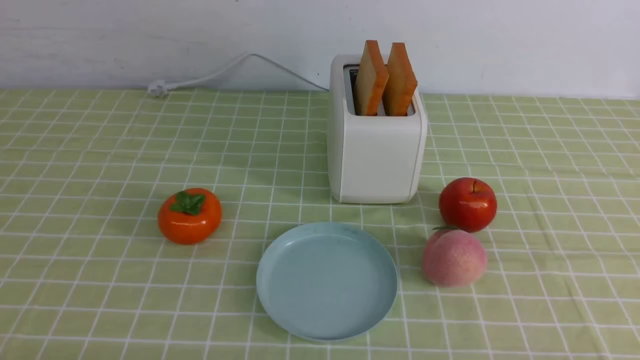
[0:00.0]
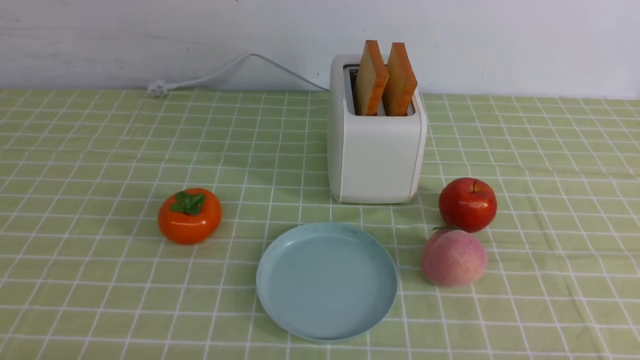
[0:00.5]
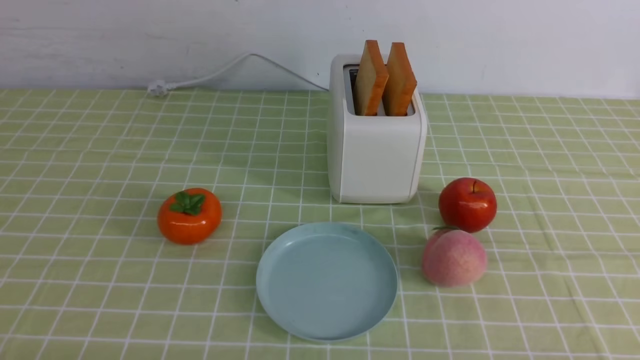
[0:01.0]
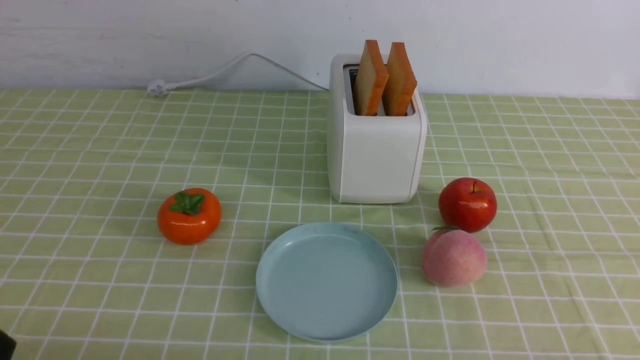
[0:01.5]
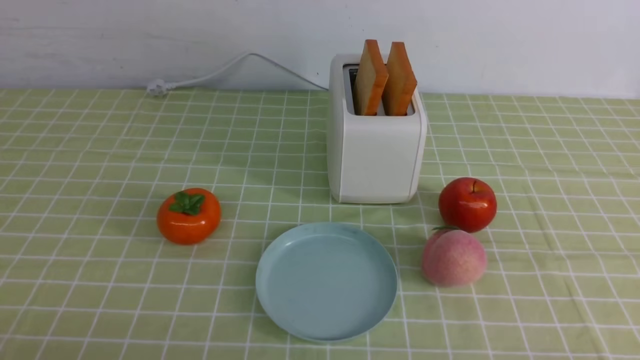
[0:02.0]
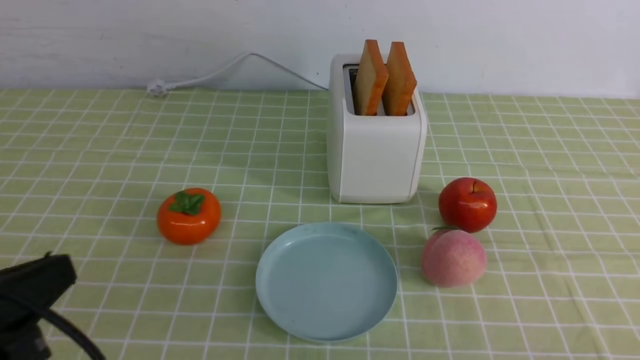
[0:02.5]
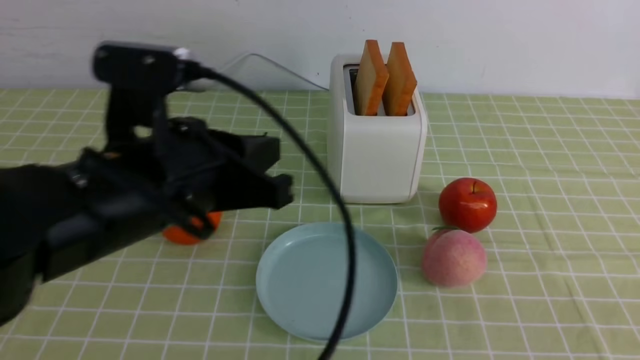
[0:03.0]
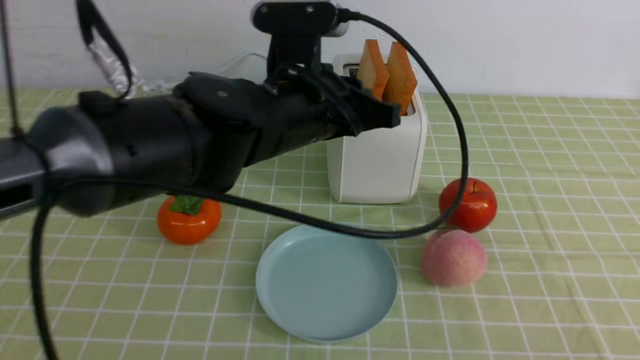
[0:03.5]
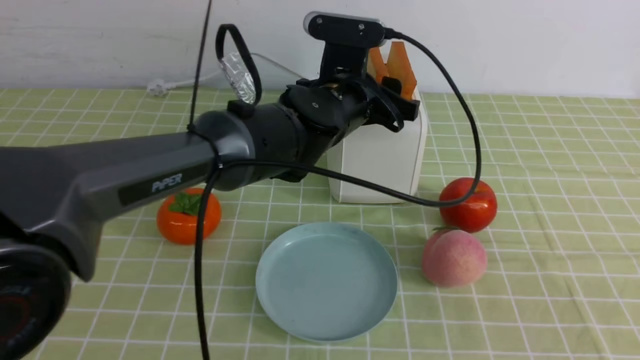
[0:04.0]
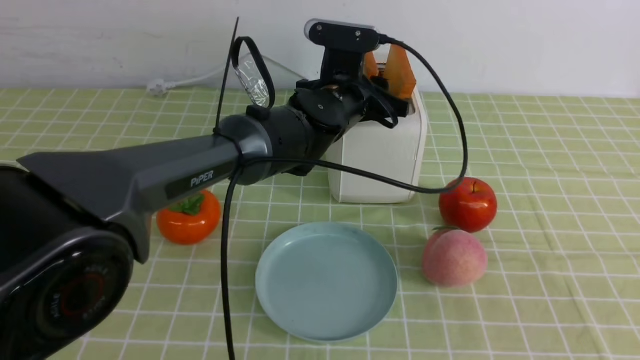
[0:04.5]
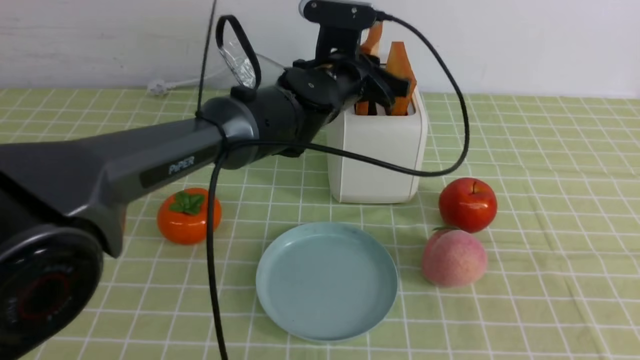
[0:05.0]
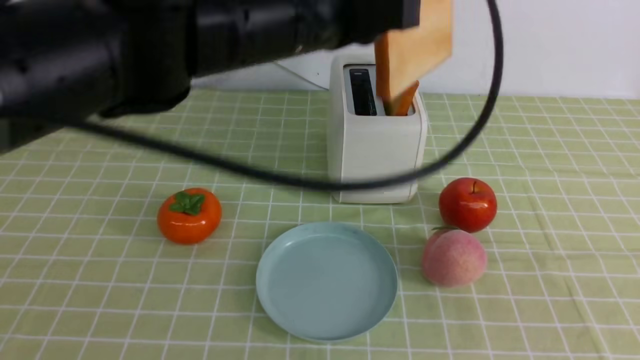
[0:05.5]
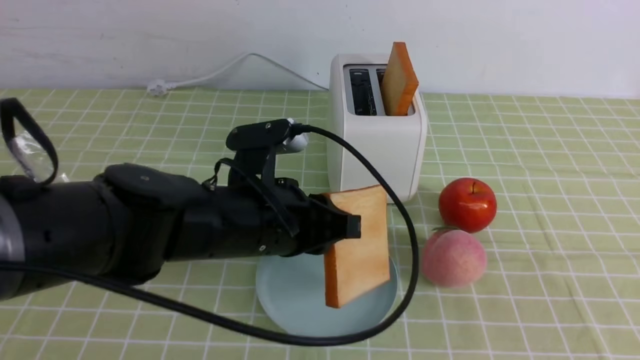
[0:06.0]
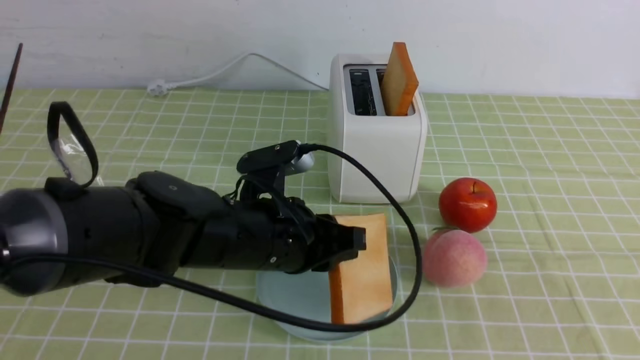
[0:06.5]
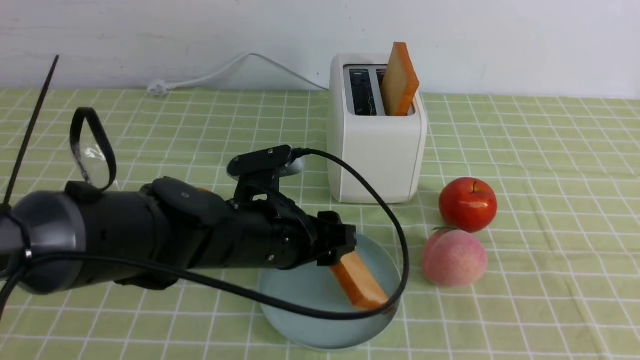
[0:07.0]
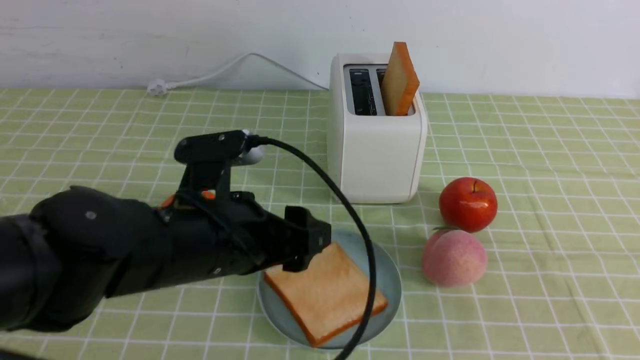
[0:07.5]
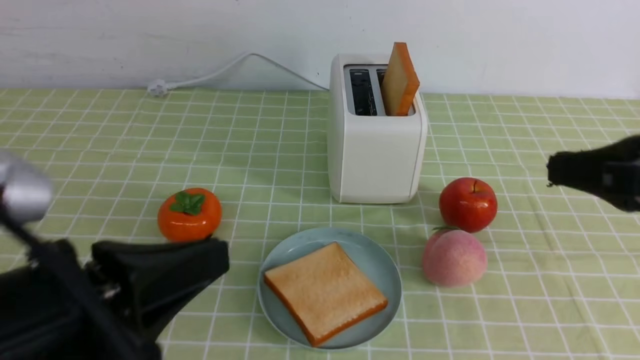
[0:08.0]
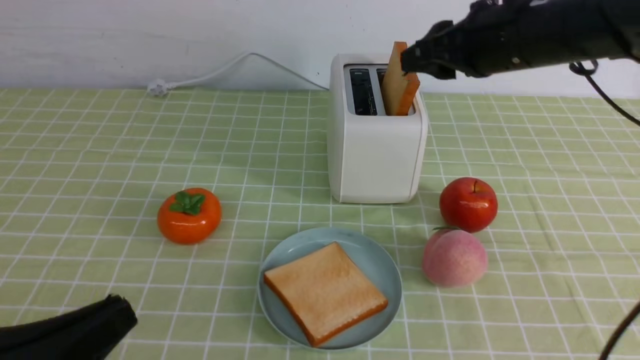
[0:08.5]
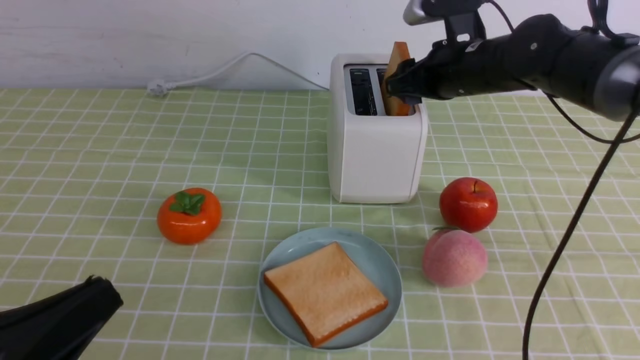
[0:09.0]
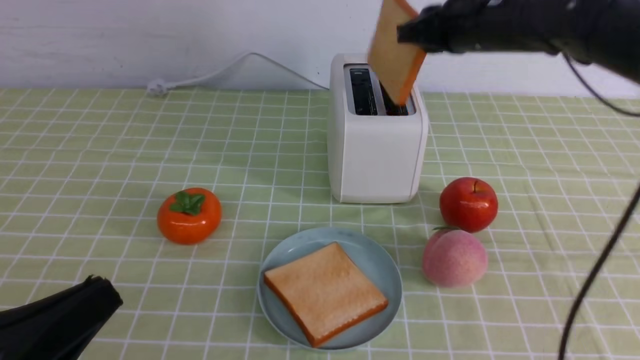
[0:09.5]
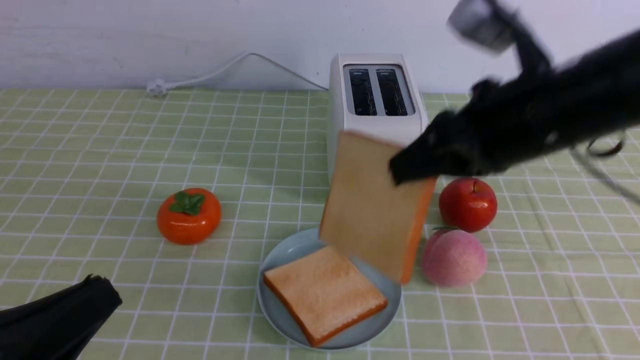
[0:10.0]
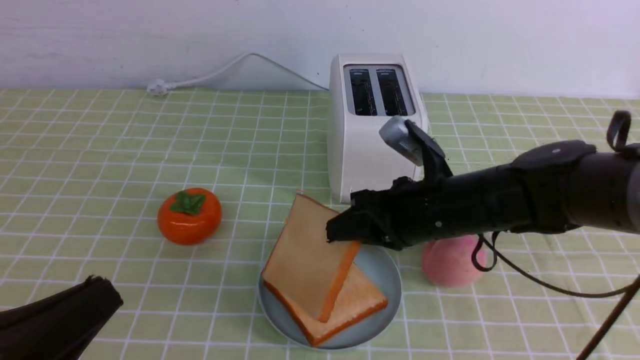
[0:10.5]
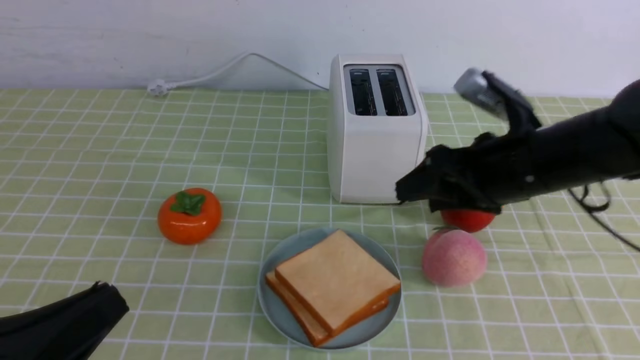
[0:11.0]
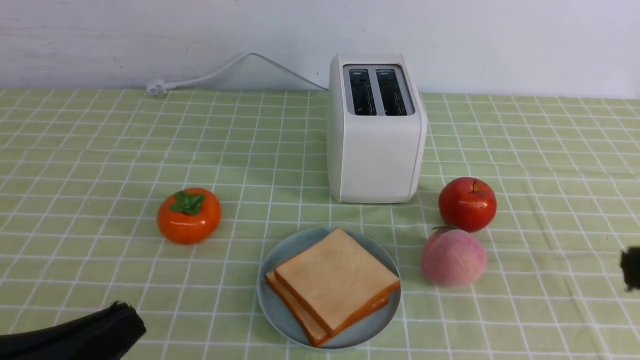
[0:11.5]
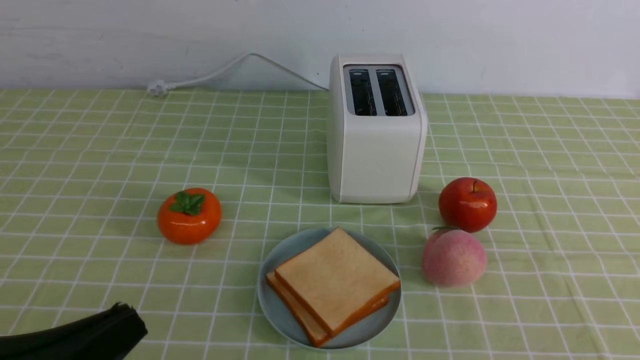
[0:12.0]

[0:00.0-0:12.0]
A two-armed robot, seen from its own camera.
Task of the whole recording: take toasted bread from bread machine on green coffee tablecloth place on plate.
Step, 0:00.0 to 0:05.0: use the left arm to take out a slice of bread.
Step, 0:05.5 to 0:07.0: use the left arm to put a slice of bread into the empty plate.
Step, 0:07.5 to 0:09.5: use the right arm to take out a slice of bread.
Step, 0:10.0 to 0:11.0: use the right arm to put a slice of bread into the plate.
0:02.0 to 0:04.0: The left gripper travels forward and to the right by roughly 40 cm, and opens, while the right gripper heads upward, covering some 15 cm, and closes its fingers.
0:04.0 to 0:06.0: The left gripper moves backward and to the left, some 15 cm, and closes up.
0:06.0 to 0:08.0: The left gripper travels backward and to the left by approximately 20 cm, and opens, then closes again, while the right gripper moves forward, about 15 cm.
0:08.0 to 0:10.0: The right gripper shifts about 15 cm to the left and forward, and opens and closes again. Meanwhile the left gripper shifts by roughly 5 cm.
0:10.0 to 0:12.0: The right gripper is displaced backward and to the right by roughly 30 cm, and opens, then closes once more.

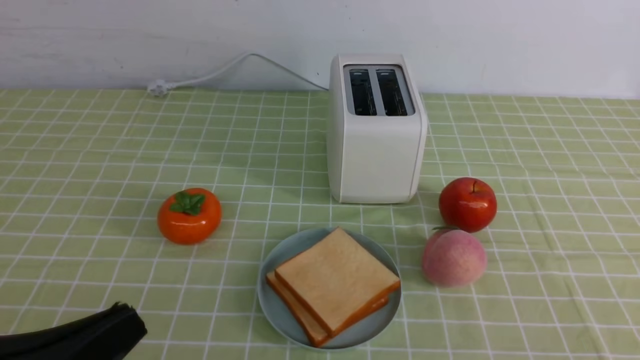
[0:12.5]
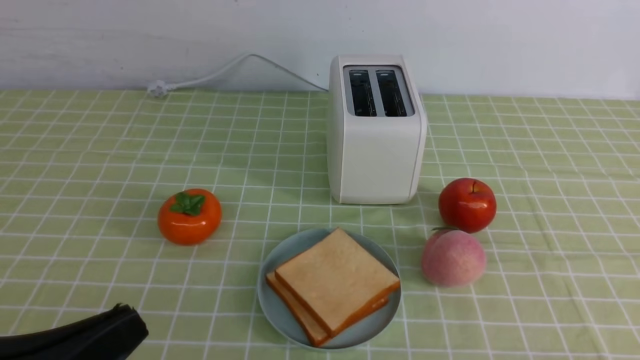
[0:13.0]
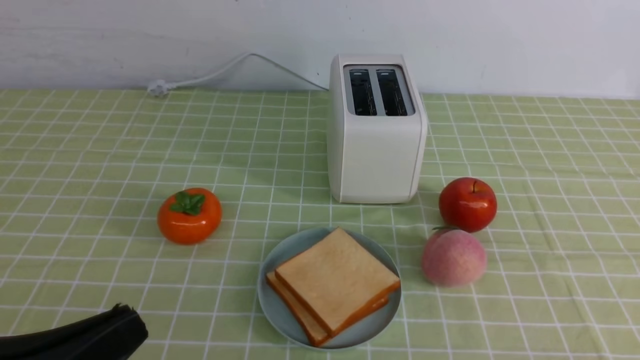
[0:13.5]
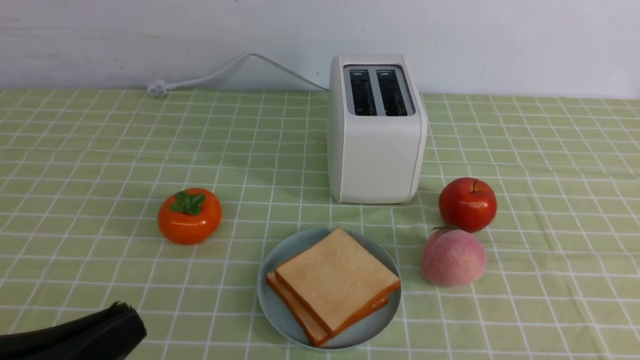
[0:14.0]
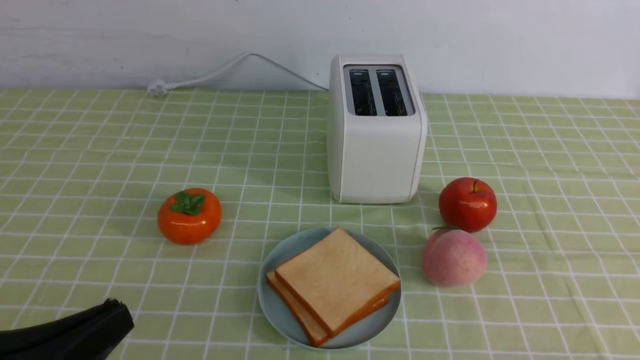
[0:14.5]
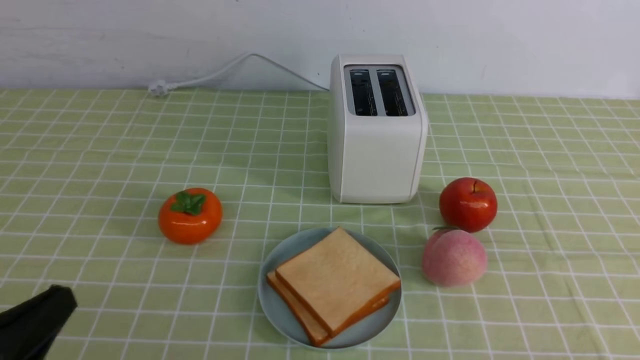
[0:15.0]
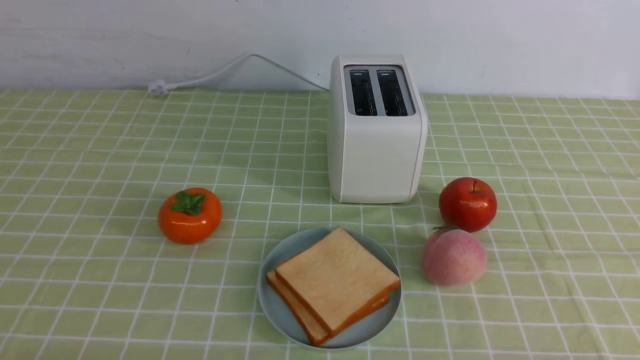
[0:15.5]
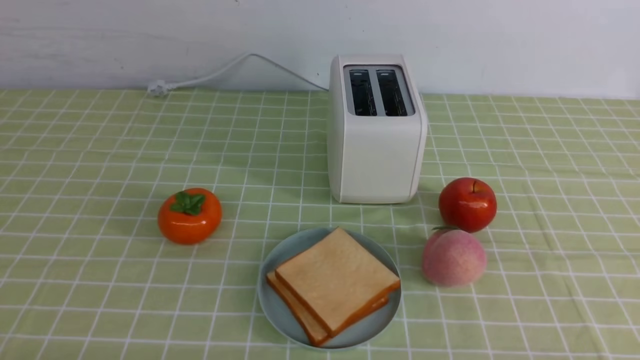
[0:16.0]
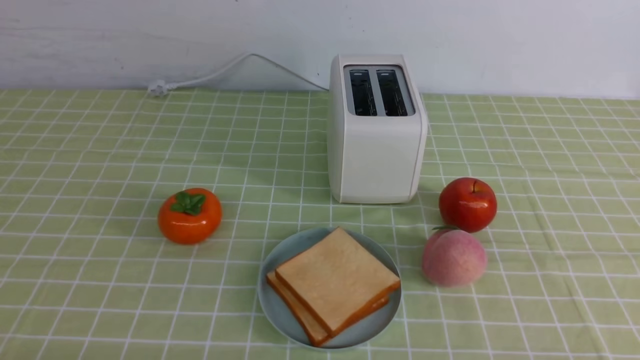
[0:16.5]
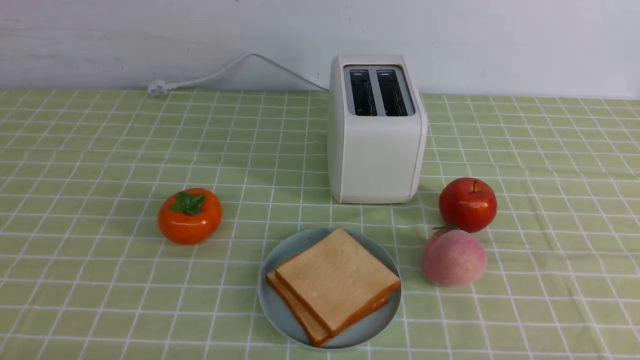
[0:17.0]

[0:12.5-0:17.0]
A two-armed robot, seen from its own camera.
Task of the whole recording: take toasted bread from bread machine on green coffee tablecloth place on plate.
0:14.5 to 0:17.0: The left gripper heads downward, covering some 10 cm.
